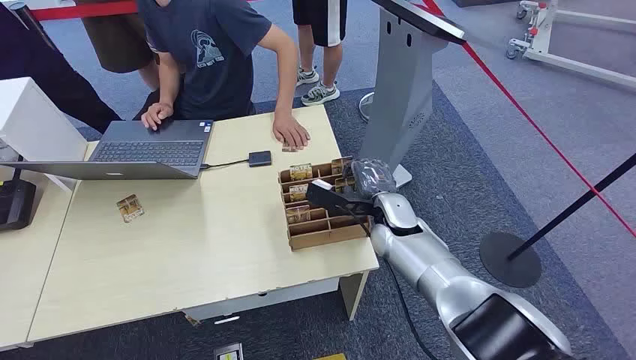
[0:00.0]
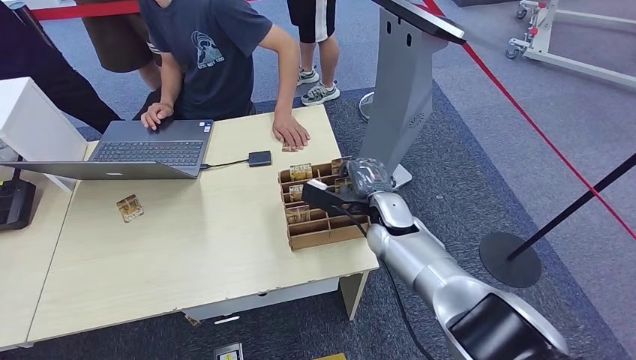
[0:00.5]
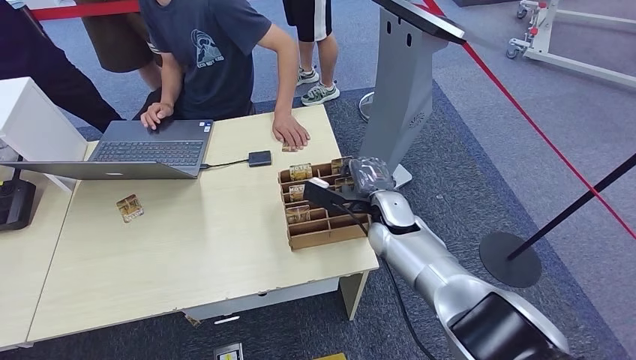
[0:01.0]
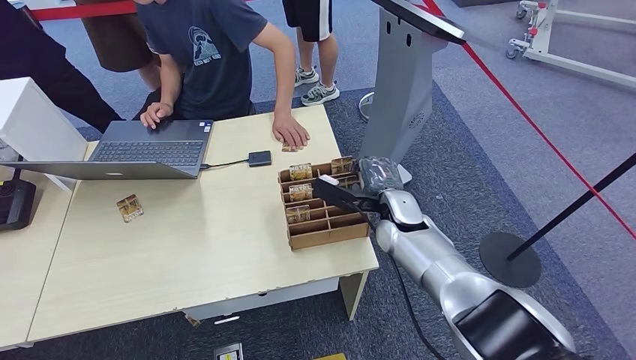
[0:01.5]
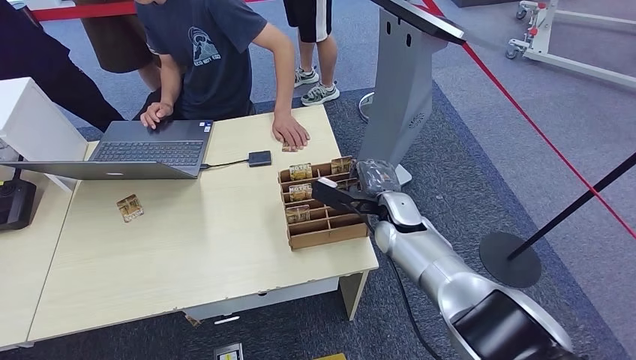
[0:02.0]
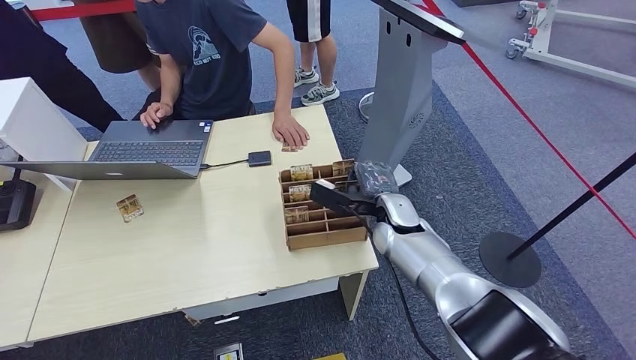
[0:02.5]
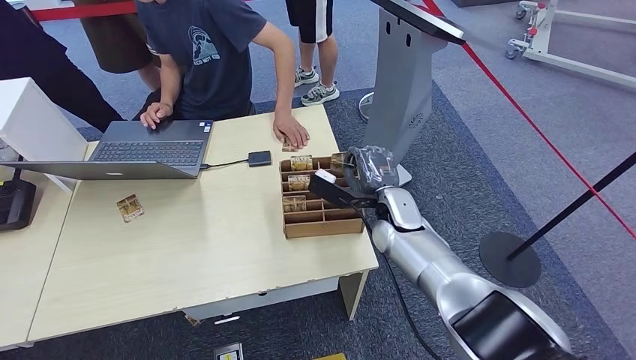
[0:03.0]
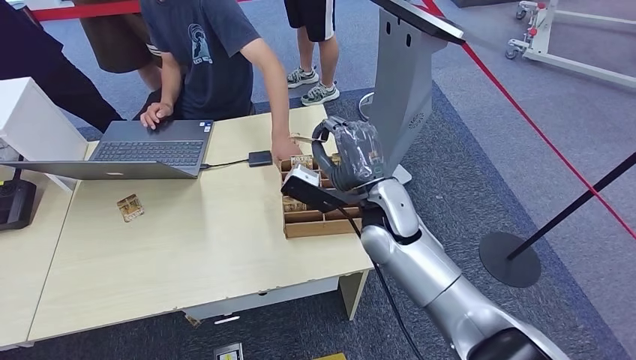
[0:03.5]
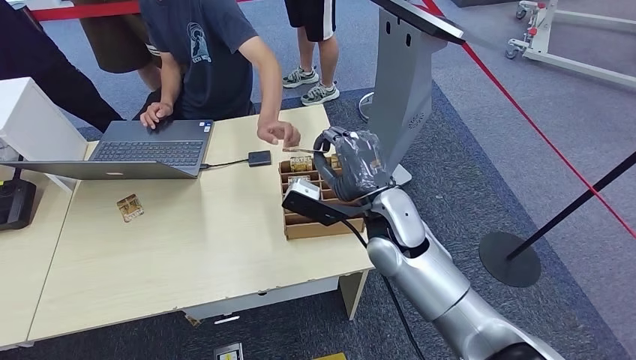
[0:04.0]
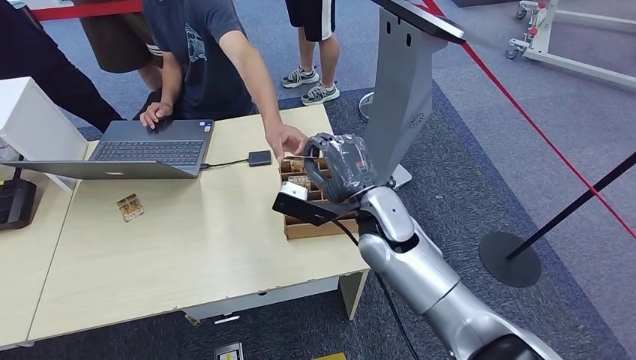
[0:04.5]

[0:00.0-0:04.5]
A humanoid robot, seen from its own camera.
Step, 0:00.0 to 0:03.0: Pick up the room card from the card holder.
Step, 0:03.5 to 0:04.5: Hand the room card to the target.
0:02.0 to 0:04.5: The right hand goes some 10 cm upward and to the left.
